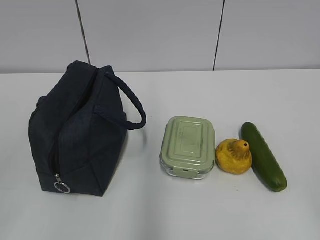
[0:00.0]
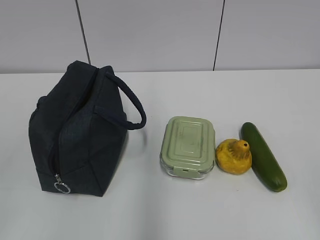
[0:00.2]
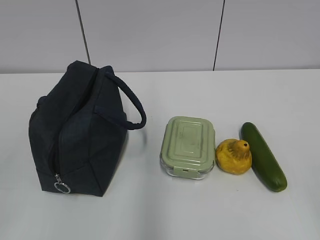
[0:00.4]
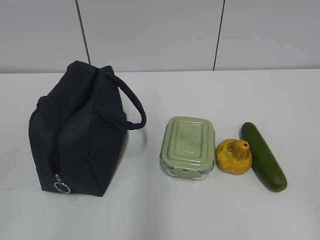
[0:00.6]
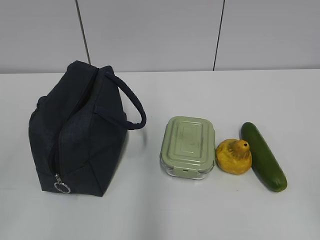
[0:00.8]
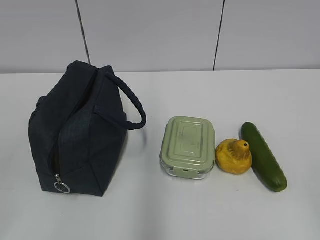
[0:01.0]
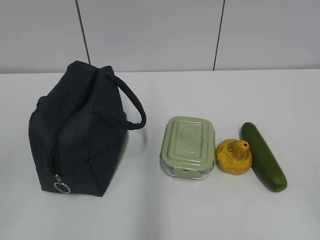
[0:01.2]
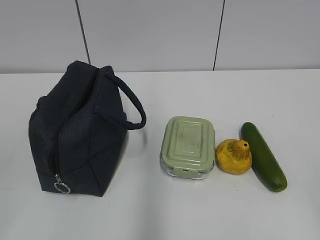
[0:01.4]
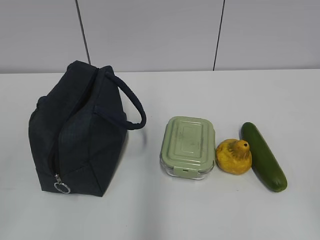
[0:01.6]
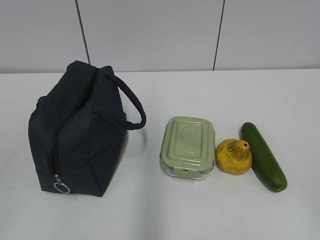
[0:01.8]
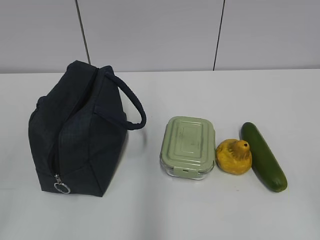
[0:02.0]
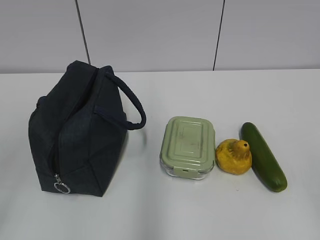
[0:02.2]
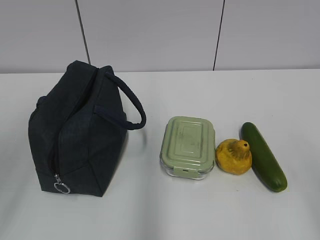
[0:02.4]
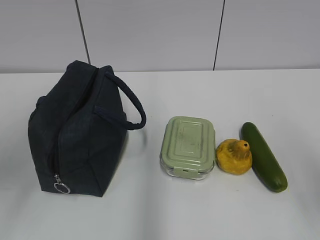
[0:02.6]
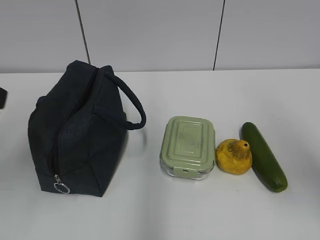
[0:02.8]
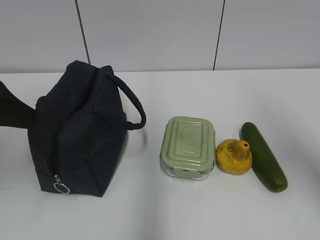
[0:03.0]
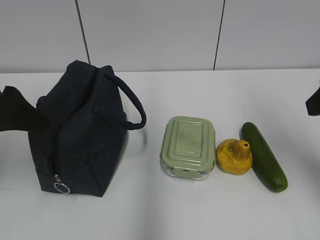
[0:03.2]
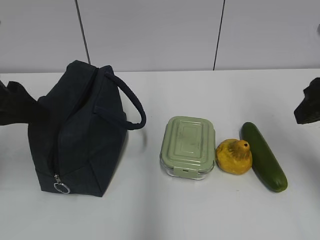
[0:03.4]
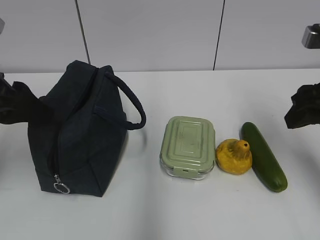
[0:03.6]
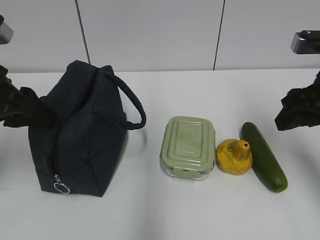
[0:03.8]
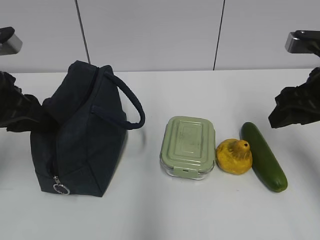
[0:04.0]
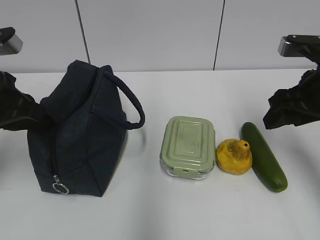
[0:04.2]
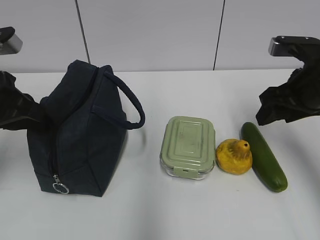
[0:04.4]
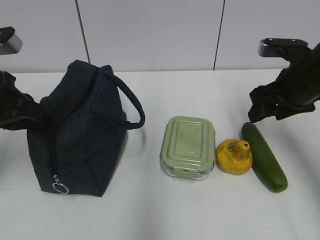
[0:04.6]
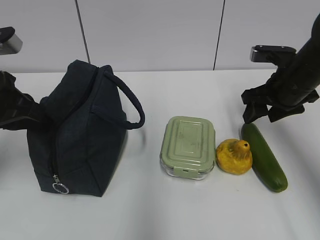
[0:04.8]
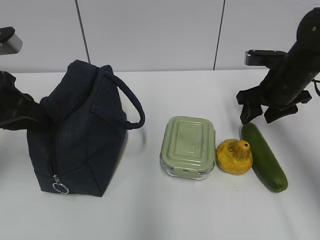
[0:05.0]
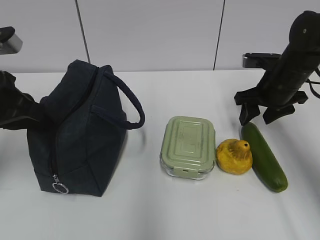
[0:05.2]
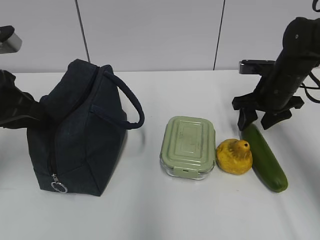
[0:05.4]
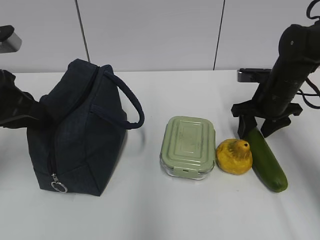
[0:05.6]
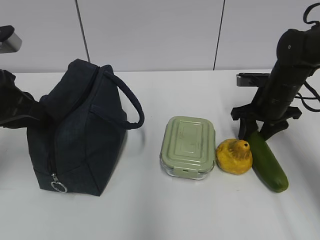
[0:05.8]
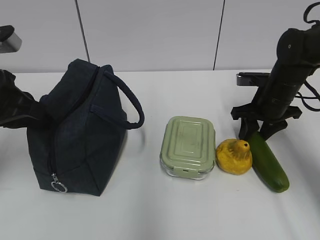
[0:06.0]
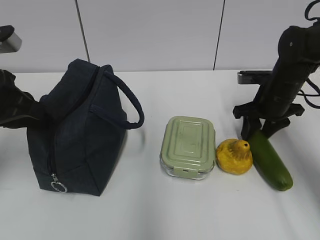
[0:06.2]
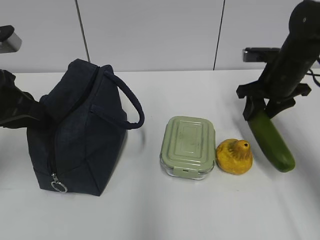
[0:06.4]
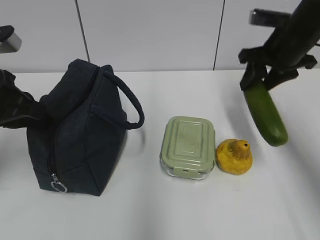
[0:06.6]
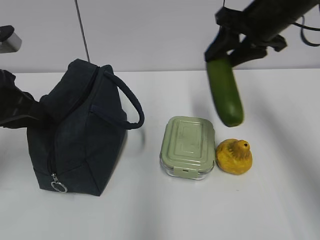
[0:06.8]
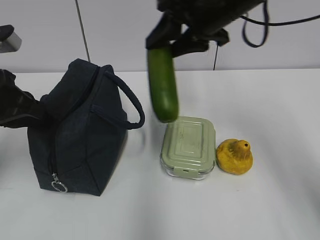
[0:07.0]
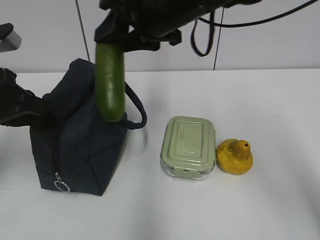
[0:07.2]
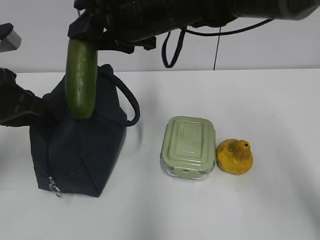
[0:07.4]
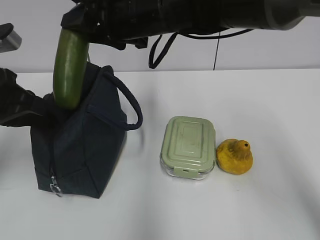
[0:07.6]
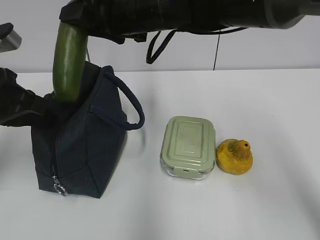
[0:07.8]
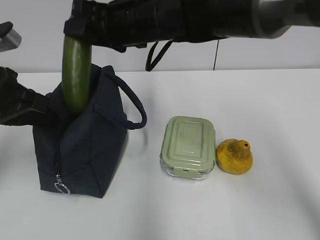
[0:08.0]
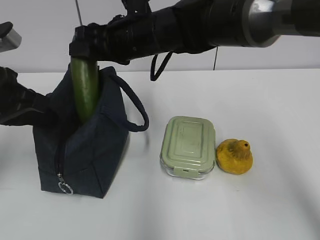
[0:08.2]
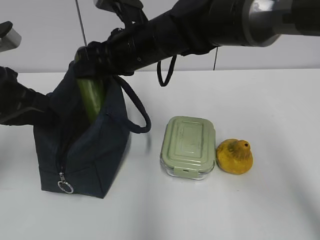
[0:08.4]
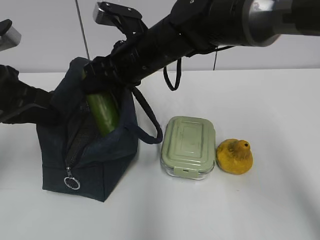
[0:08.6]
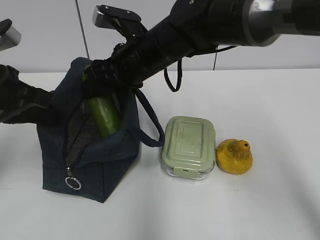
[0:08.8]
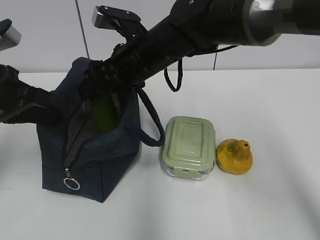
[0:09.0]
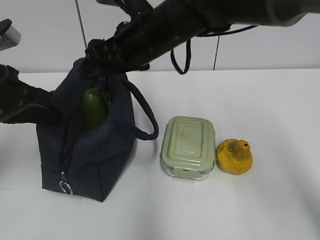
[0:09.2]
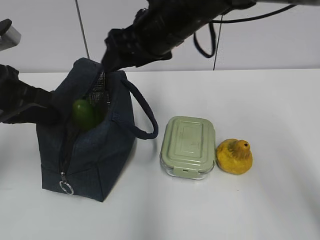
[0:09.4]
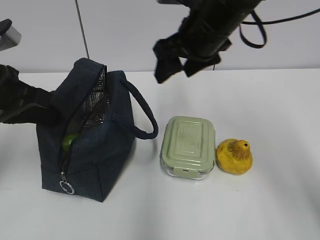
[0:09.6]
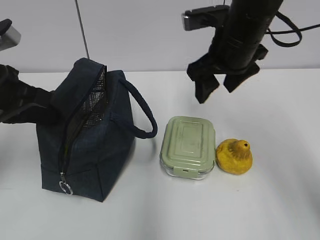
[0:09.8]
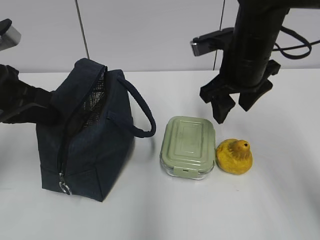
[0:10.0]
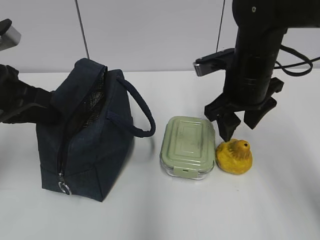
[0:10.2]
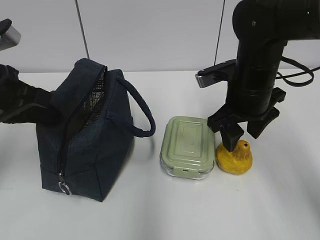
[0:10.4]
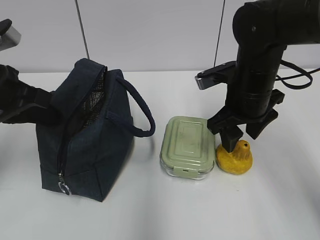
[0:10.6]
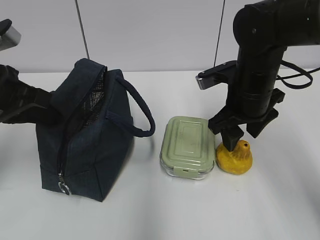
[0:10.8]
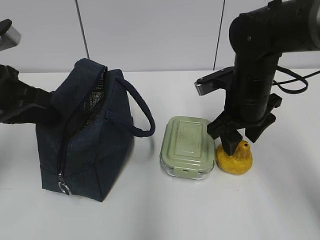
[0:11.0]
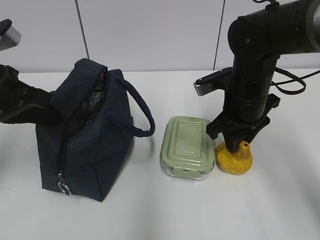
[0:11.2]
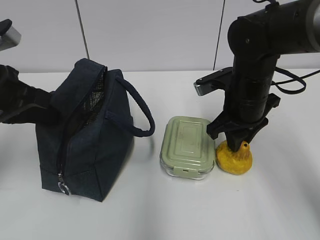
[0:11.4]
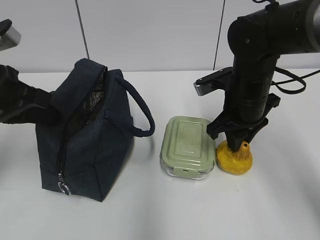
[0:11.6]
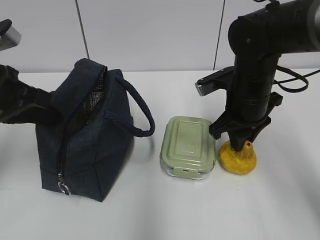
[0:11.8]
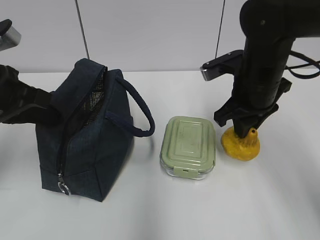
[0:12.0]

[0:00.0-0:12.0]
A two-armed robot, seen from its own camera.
Step, 0:00.0 to 0:03.4: Grab the lunch bag with your left hand.
Step, 0:03.8 to 0:06.0: Grab the cucumber with your right hand.
Step, 0:06.4 to 0:09.0: Place it into the bag with your right hand.
Step, 0:09.4 to 0:11.6: Grab the pear with your right hand.
0:01.6 to 0:03.0: The two grippers go roughly 20 cm forward.
0:03.0 to 0:04.4: The right gripper shifts approximately 15 cm forward and downward, while the left gripper shifts by approximately 5 cm, and closes its fingers.
0:04.4 to 0:06.0: The right gripper heads downward and forward, covering some 15 cm.
0:06.0 to 0:07.6: The right gripper travels to the left and upward by roughly 30 cm.
0:07.6 to 0:09.0: The right gripper shifts some 5 cm downward, and opens up.
0:09.0 to 0:10.4: The right gripper shifts roughly 15 cm to the right.
0:10.4 to 0:12.0: The right gripper closes up.

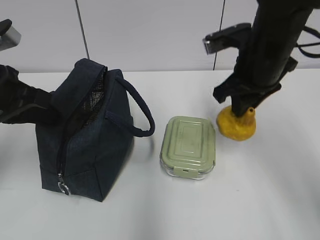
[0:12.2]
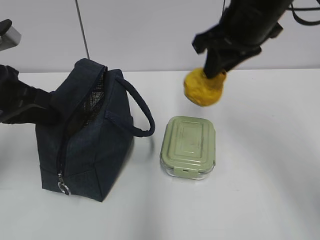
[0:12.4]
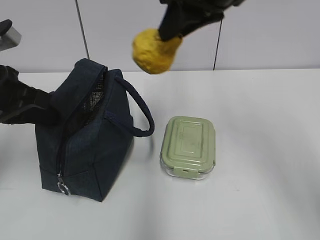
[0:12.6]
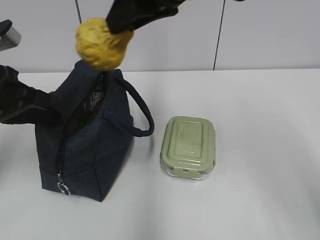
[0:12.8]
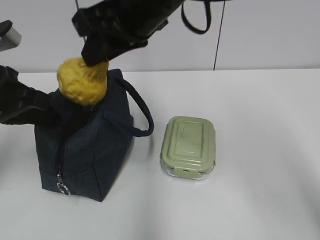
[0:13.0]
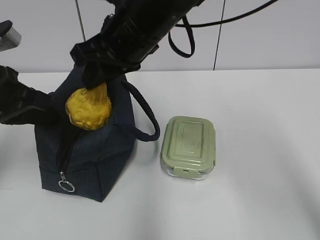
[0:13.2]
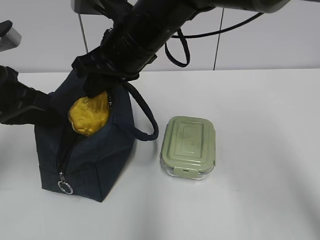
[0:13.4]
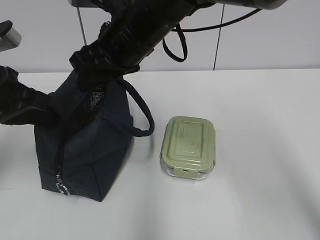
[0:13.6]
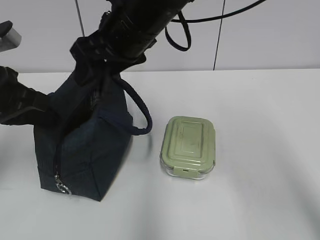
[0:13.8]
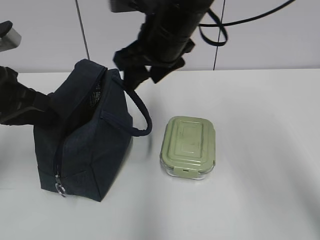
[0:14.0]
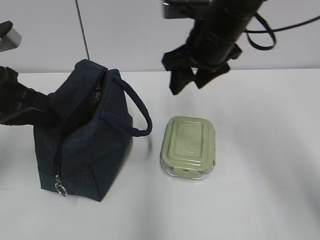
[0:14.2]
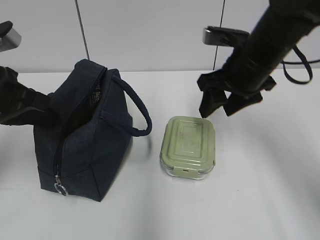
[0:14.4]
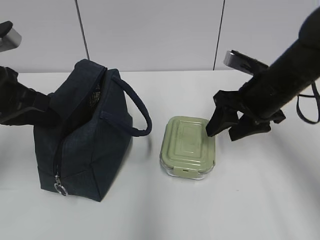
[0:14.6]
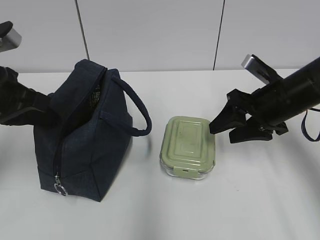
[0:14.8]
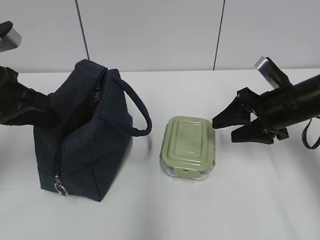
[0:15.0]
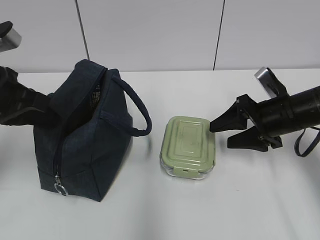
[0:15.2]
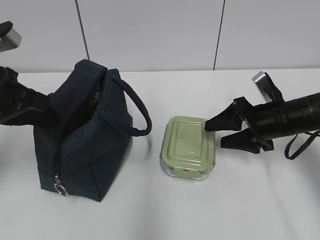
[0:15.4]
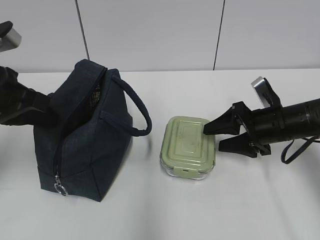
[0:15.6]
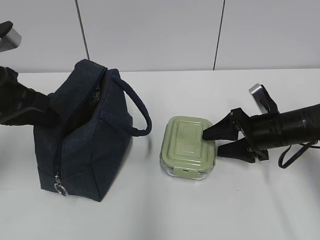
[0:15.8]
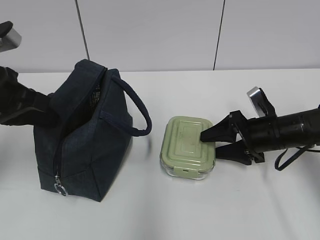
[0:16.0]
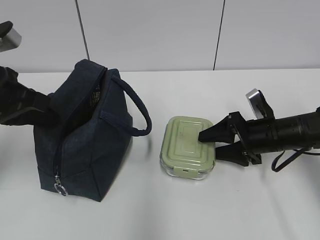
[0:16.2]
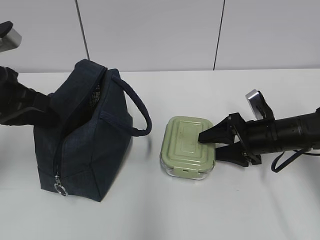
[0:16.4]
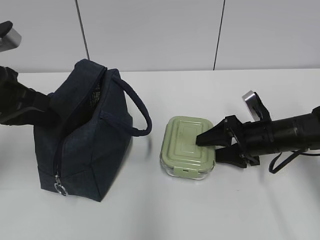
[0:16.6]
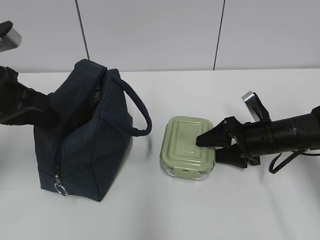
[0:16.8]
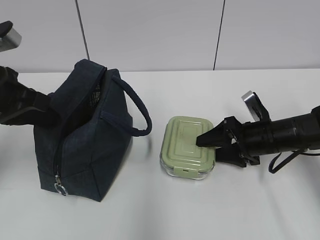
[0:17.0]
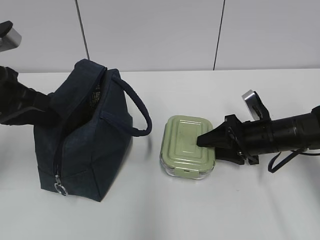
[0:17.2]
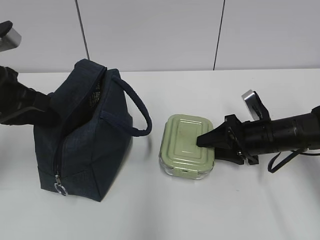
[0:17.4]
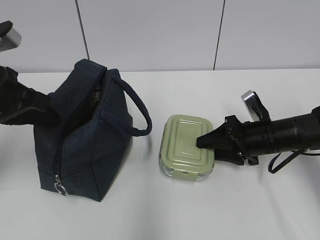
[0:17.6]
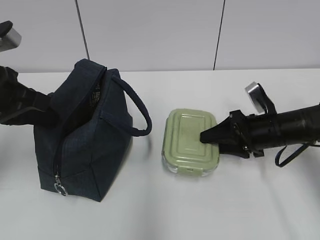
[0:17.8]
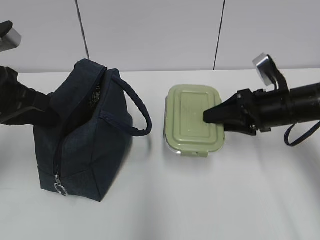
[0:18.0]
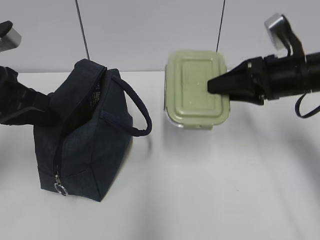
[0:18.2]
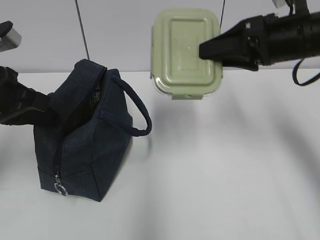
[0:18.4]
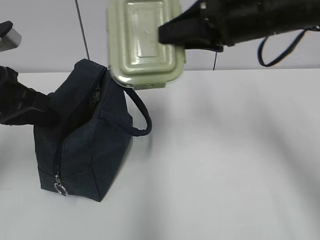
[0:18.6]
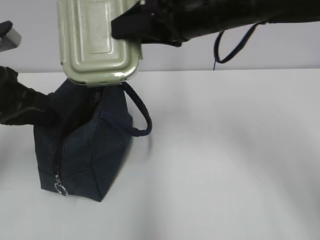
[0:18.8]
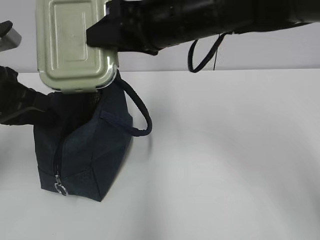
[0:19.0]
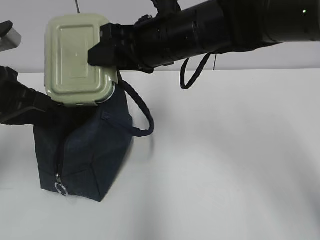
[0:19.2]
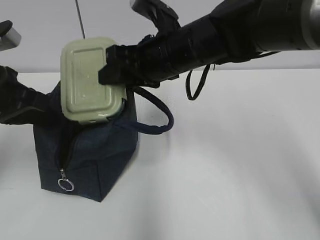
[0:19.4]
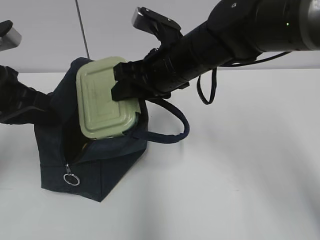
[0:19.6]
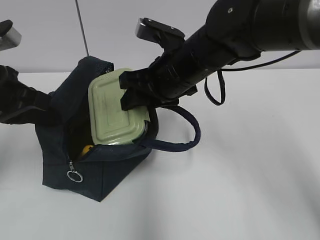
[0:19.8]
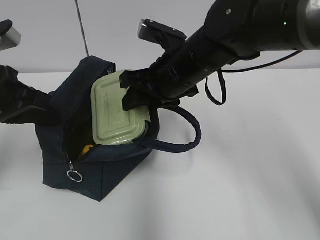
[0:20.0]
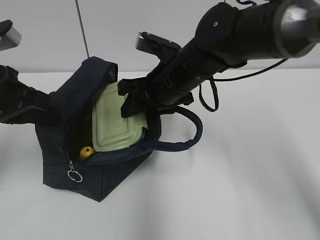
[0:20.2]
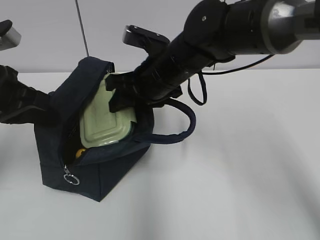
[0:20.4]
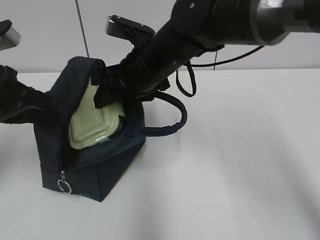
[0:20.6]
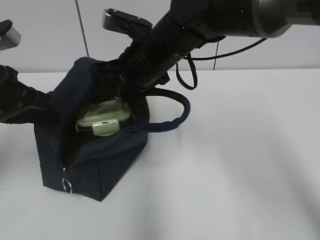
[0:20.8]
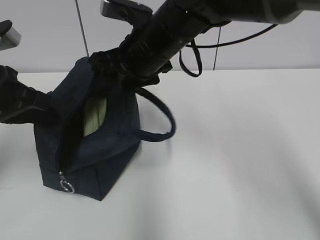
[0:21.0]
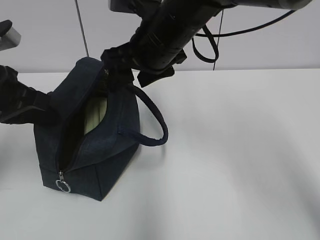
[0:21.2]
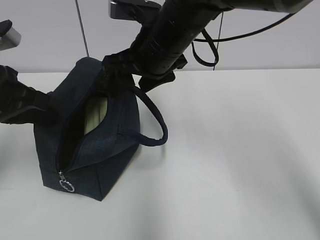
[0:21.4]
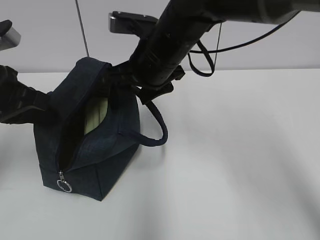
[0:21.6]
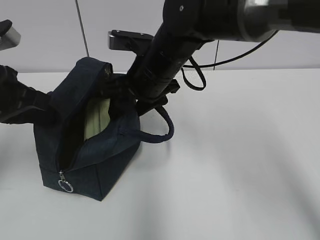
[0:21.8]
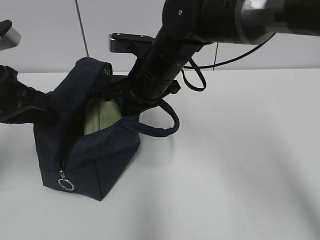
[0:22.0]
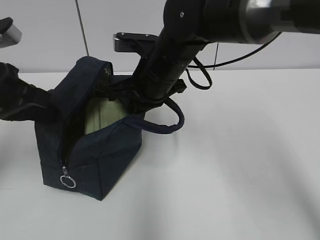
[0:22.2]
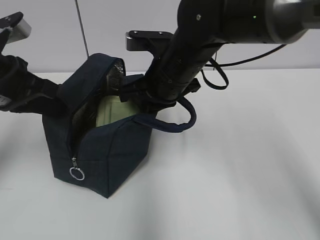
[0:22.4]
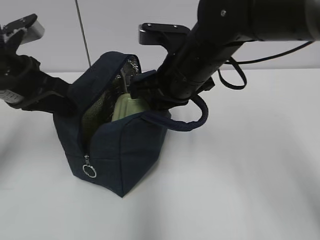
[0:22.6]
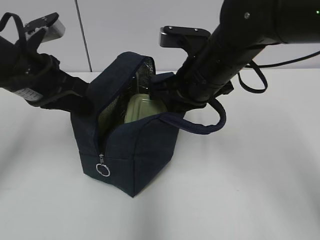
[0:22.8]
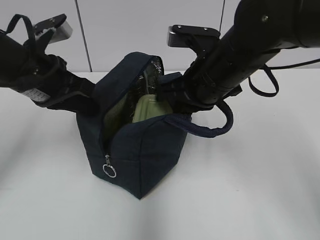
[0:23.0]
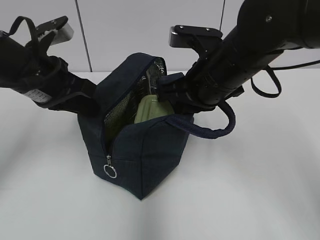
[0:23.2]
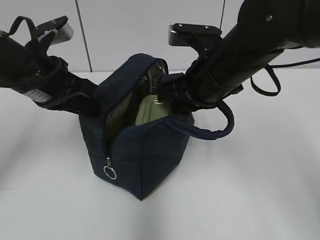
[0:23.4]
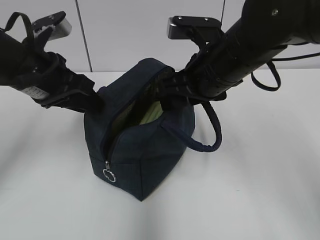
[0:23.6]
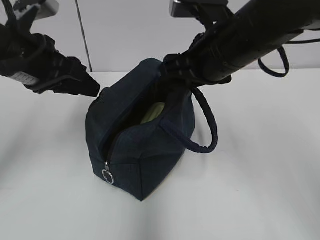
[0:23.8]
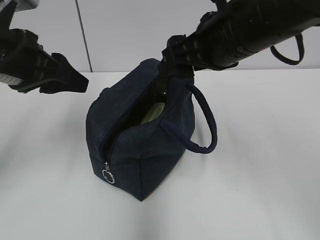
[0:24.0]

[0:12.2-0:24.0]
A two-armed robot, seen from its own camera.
Step, 0:12.2 to 0:13.4: Place it into the bag with your right hand.
Step, 0:13.8 to 0:17.6: Grab the lunch box with your right hand.
Step, 0:21.0 to 0:22.0: Grab the lunch bag with your right hand.
Step, 0:22.2 to 0:23.4: Move the lunch bag to the right.
0:12.2 to 0:13.6: The right gripper is displaced to the left by some 15 cm, and opens its fingers.
0:13.6 to 0:15.2: The right gripper goes roughly 30 cm to the right and downward.
0:15.2 to 0:16.6: The right gripper travels downward by roughly 5 cm.
0:16.6 to 0:18.2: The right gripper moves upward, some 15 cm, and closes.
0:18.2 to 0:19.6: The right gripper shifts roughly 20 cm to the left.
0:21.0 to 0:22.6: The right gripper moves roughly 5 cm, and closes its fingers.
0:22.6 to 0:24.0: The right gripper moves upward and backward, approximately 10 cm, and opens up, while the left gripper moves some 5 cm, and opens.
